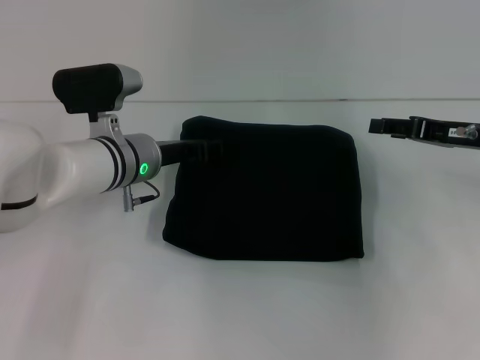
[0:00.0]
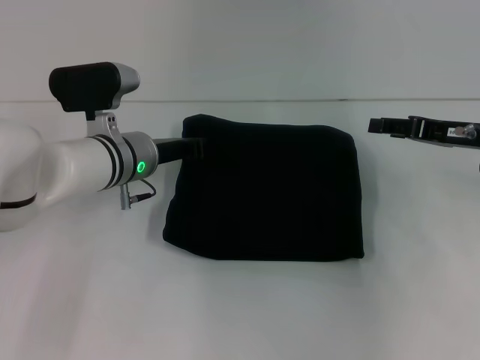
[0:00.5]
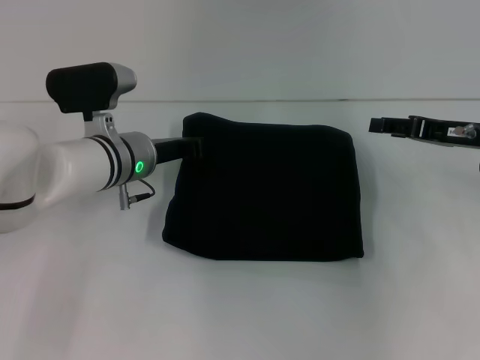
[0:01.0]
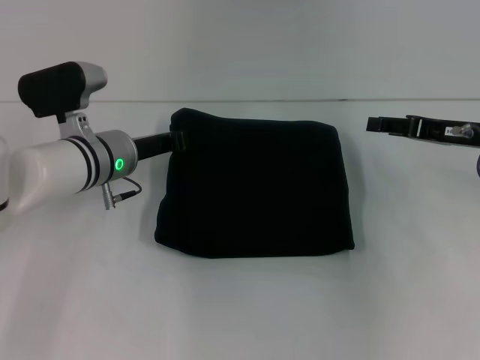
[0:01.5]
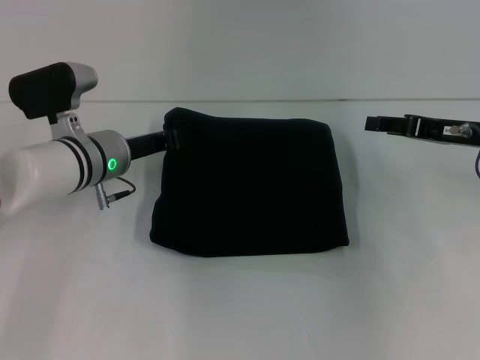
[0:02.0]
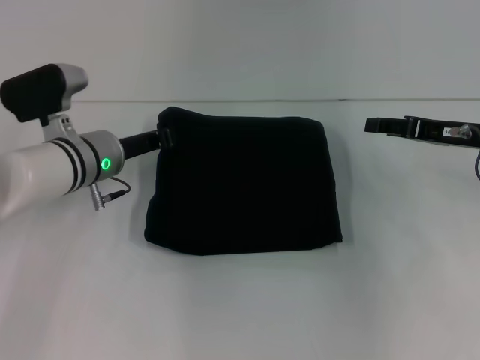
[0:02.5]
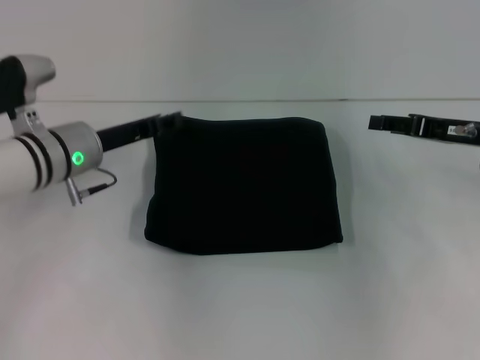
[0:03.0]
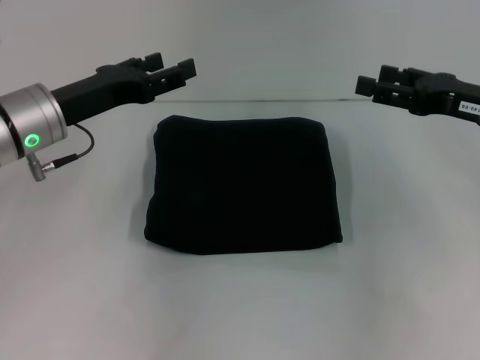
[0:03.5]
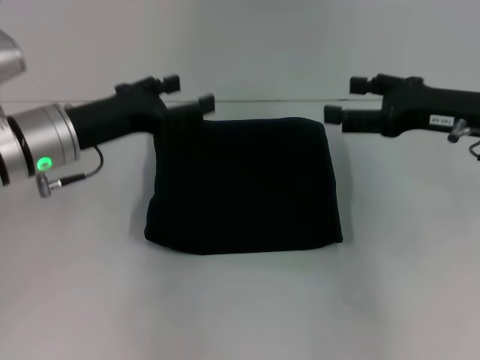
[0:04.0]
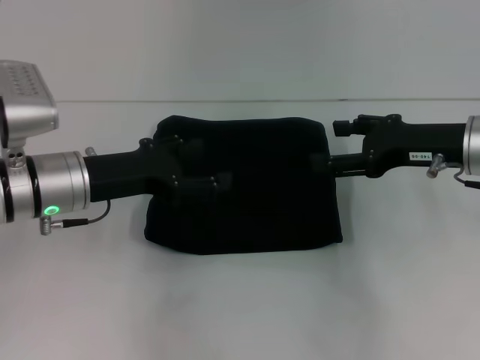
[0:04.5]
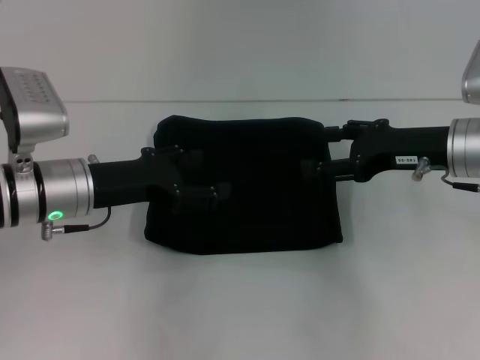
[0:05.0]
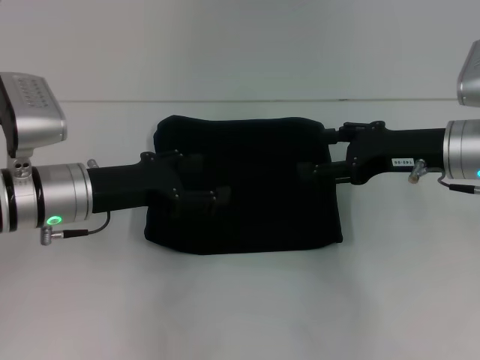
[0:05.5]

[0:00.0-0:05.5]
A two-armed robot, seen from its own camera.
0:00.0 to 0:02.0: The left gripper closes up.
0:02.0 to 0:03.5: The left gripper travels upward and to the left by some 10 cm, and opens its fingers.
0:03.5 to 0:05.5: The left gripper ends up some 5 cm from where it was. Meanwhile the right gripper travels to the left by approximately 5 cm.

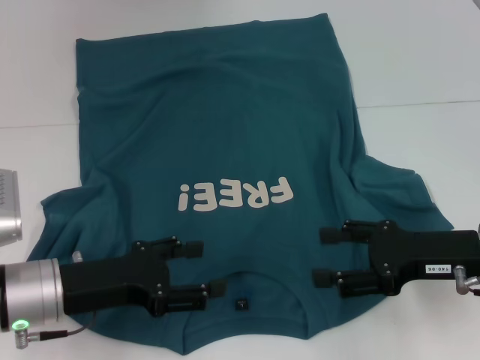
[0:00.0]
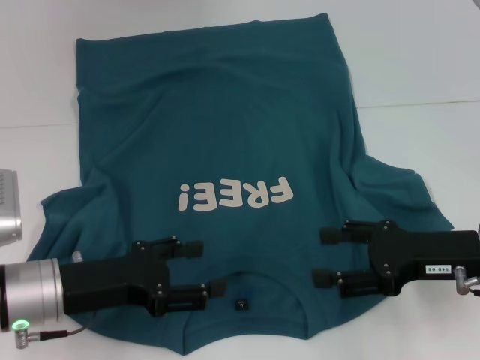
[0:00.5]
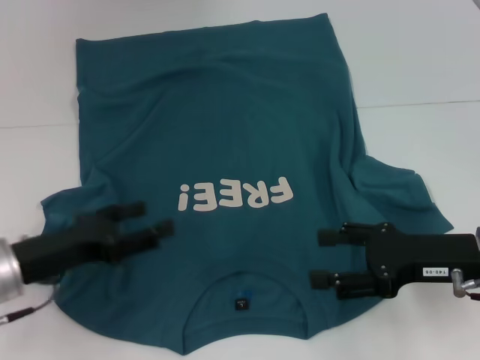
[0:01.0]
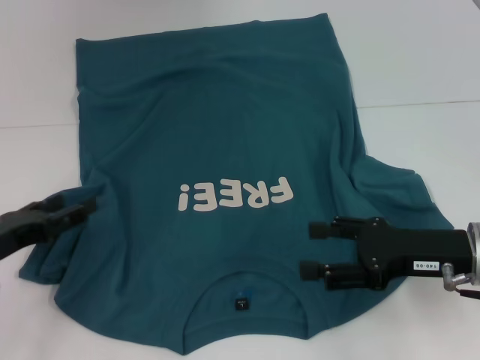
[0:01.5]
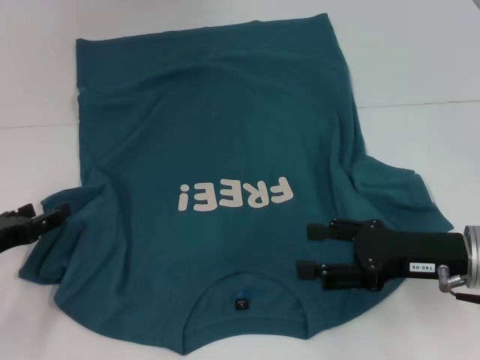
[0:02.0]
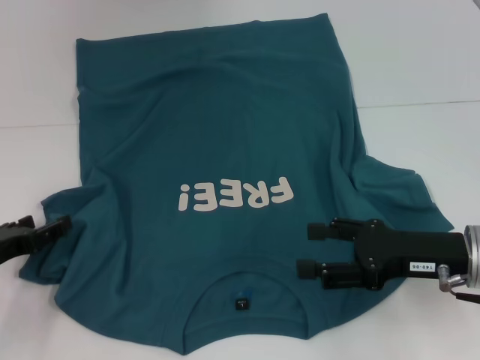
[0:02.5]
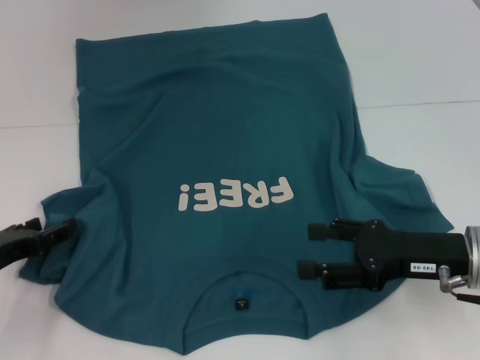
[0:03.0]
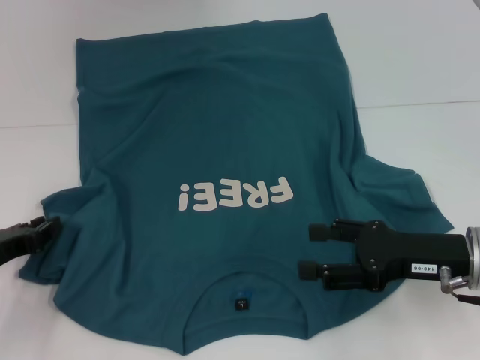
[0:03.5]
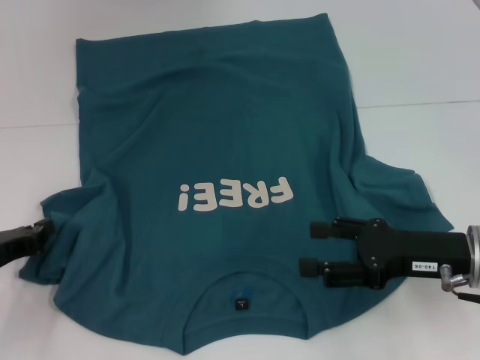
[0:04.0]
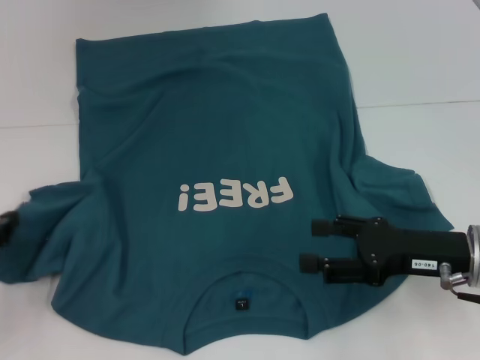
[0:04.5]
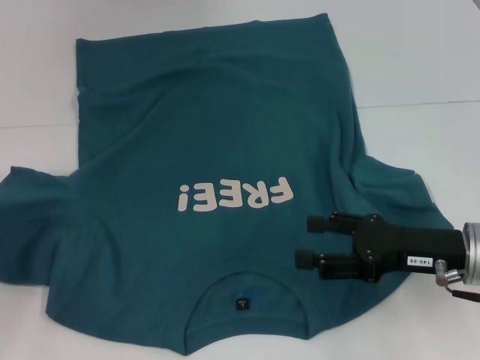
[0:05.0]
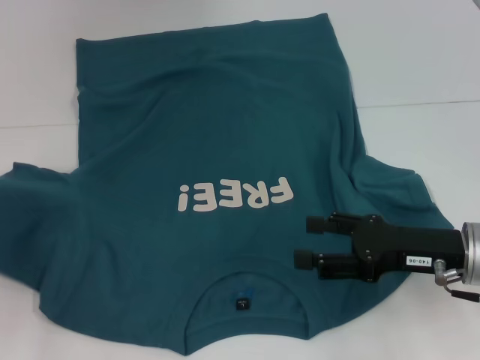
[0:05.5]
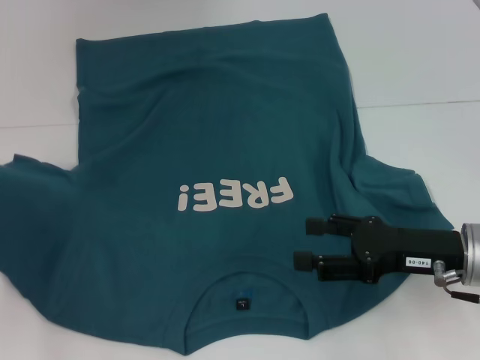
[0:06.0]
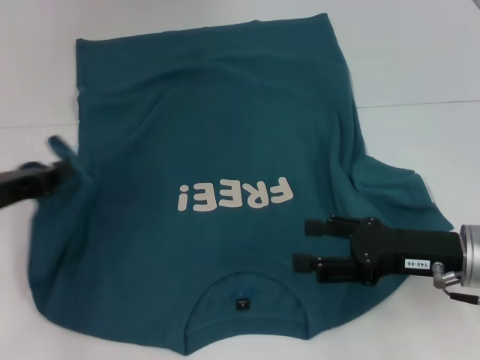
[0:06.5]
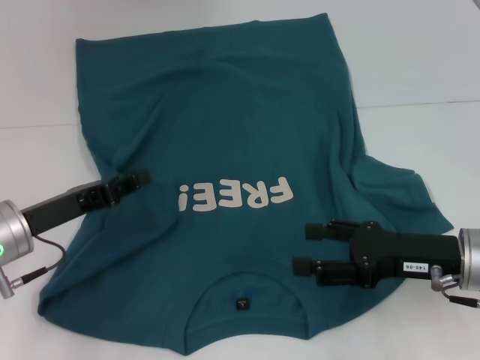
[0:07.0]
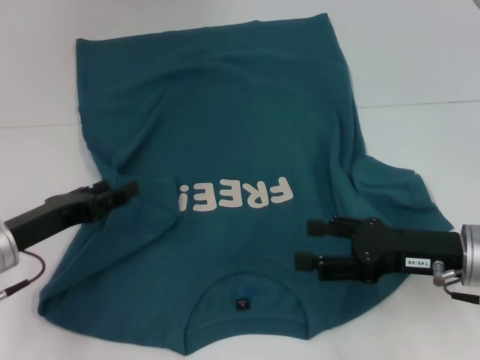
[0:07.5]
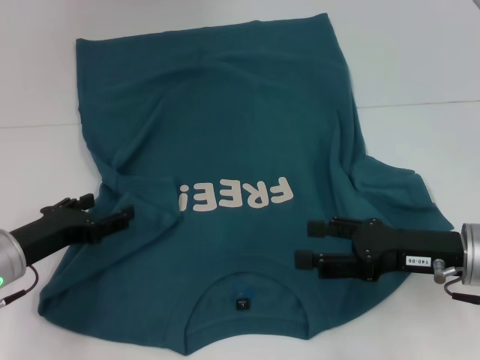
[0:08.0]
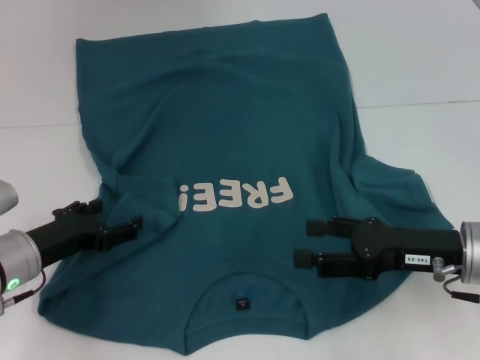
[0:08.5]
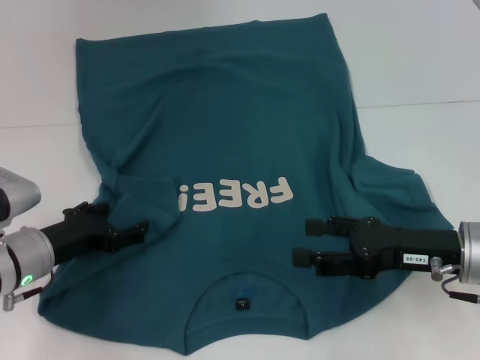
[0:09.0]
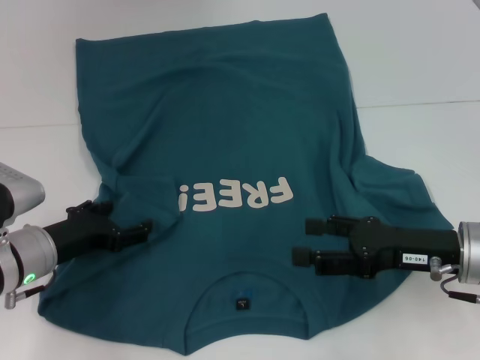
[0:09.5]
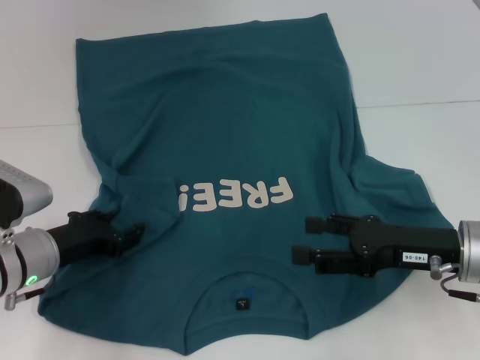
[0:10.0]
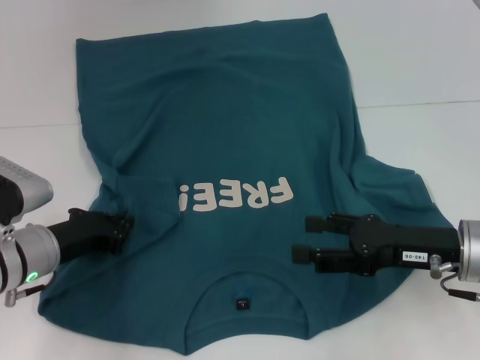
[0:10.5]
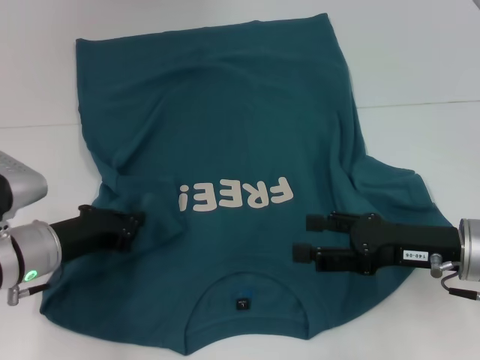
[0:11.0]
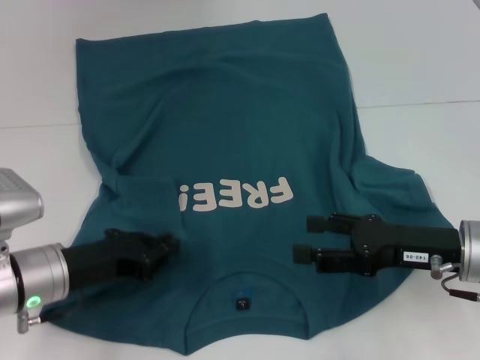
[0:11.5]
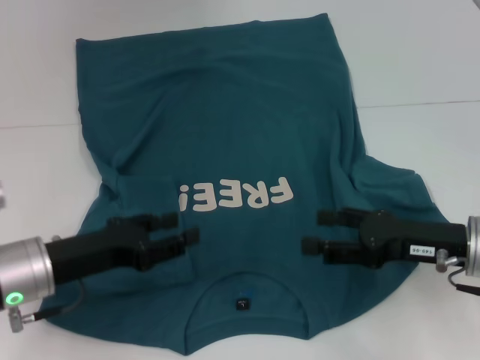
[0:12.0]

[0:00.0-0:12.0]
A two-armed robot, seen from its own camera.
Step, 0:00.0 to 0:11.5: Fold the bottom left sleeve with your left hand.
0:00.0 to 0:02.0: The left gripper is displaced to the left by some 10 cm.
0:02.0 to 0:04.0: The left gripper closes up.
0:04.0 to 0:06.0: The left gripper shifts about 5 cm upward.
0:06.0 to 0:08.0: The left gripper goes roughly 10 cm to the right and downward, and opens its fingers.
0:08.0 to 0:10.0: The grippers move only a little.
0:10.0 to 0:12.0: The left gripper shifts by some 5 cm.

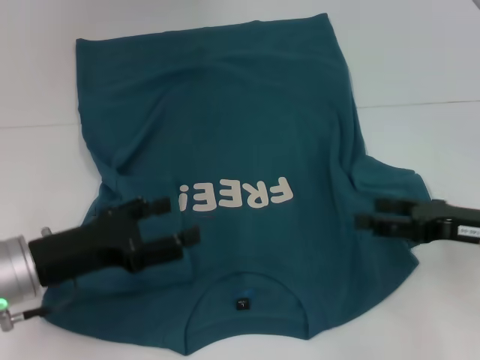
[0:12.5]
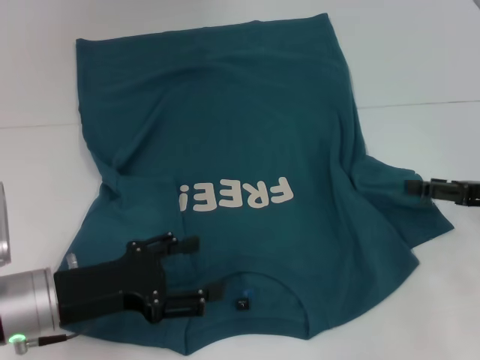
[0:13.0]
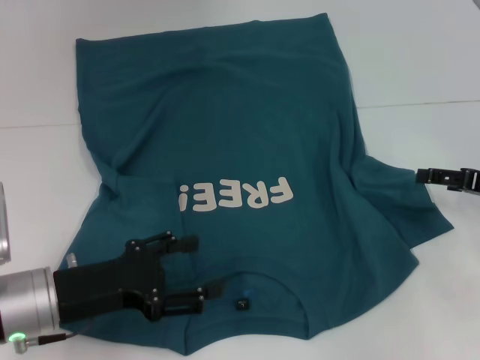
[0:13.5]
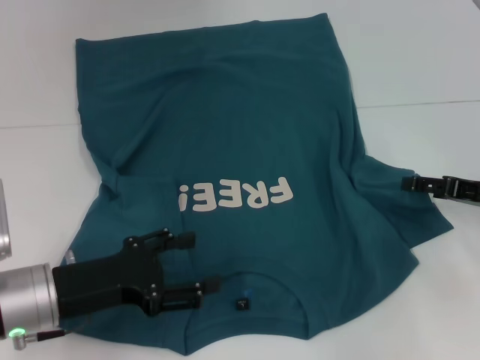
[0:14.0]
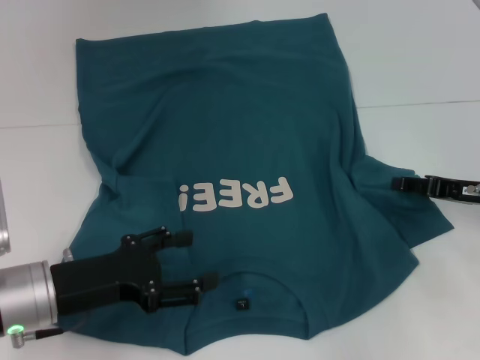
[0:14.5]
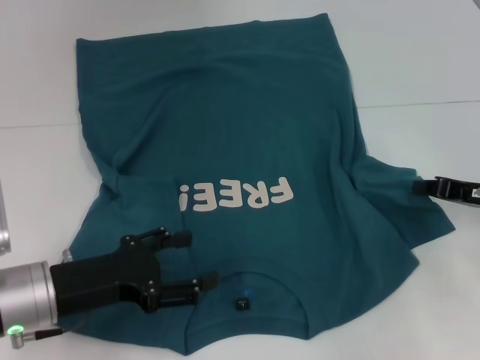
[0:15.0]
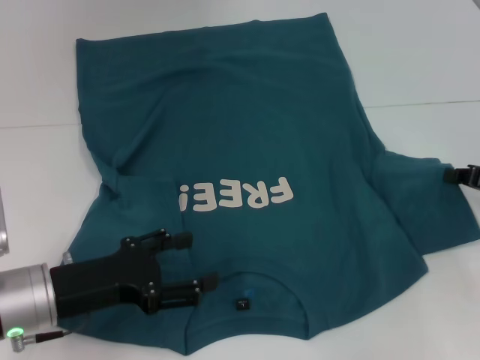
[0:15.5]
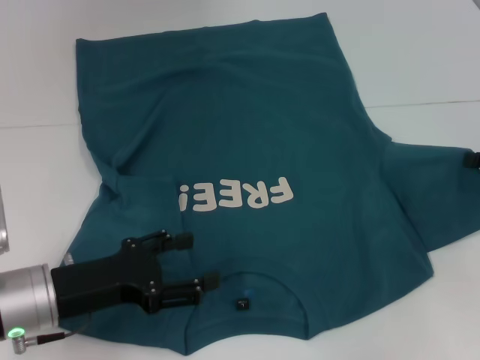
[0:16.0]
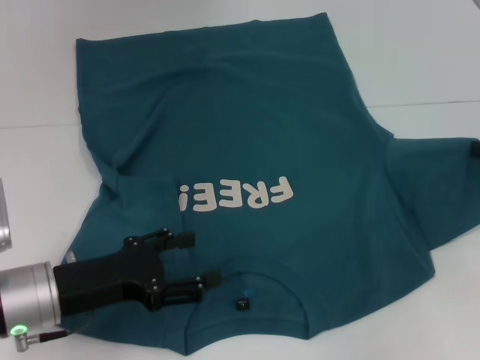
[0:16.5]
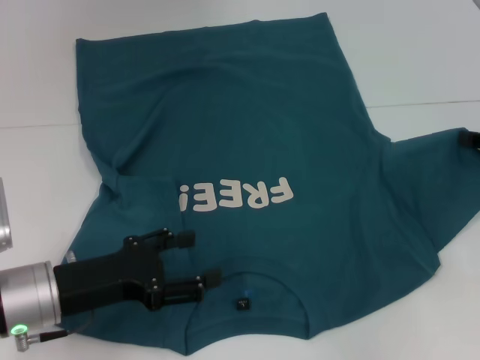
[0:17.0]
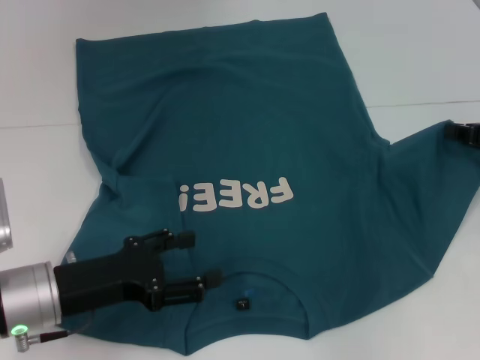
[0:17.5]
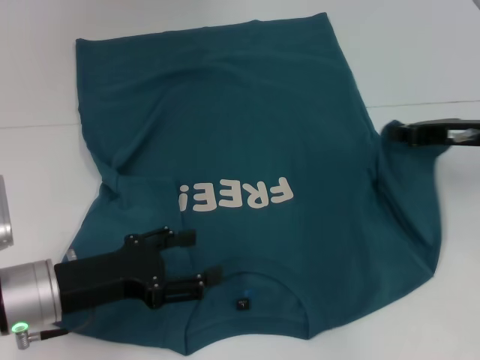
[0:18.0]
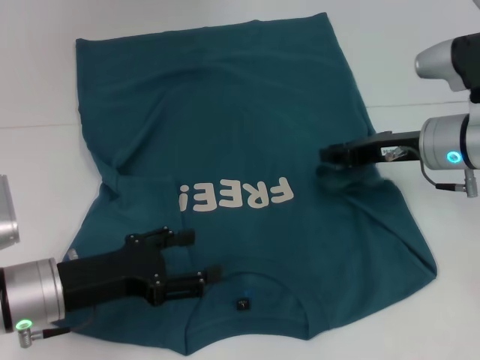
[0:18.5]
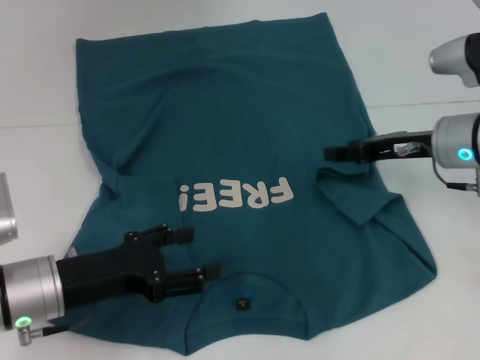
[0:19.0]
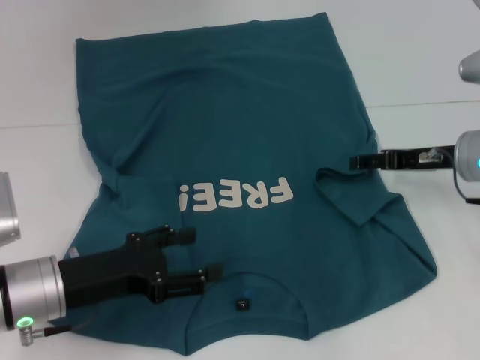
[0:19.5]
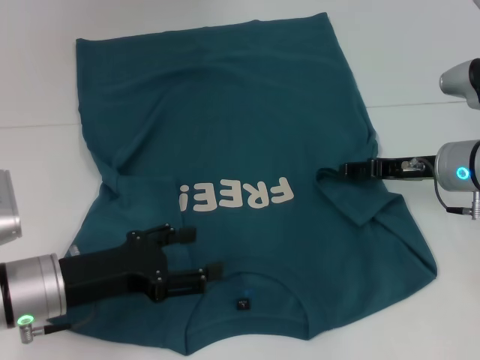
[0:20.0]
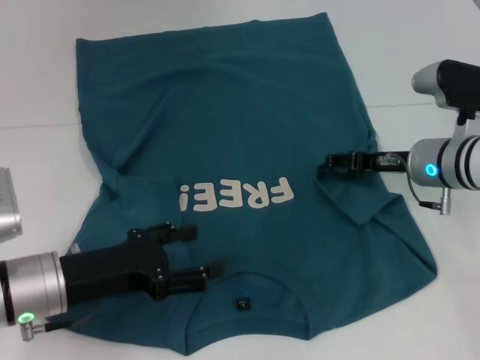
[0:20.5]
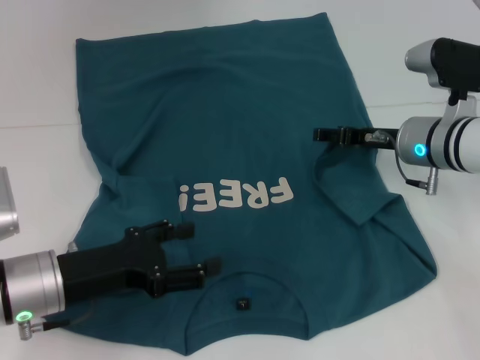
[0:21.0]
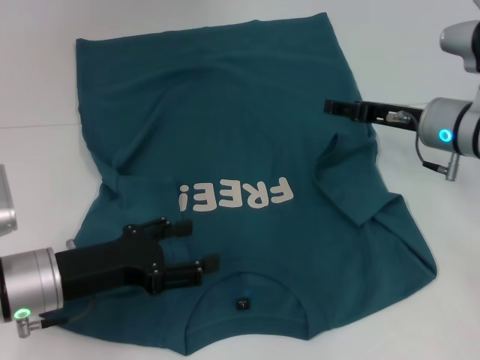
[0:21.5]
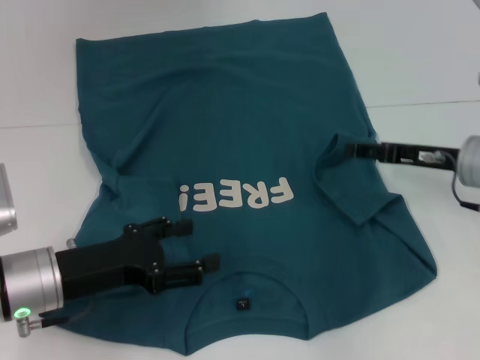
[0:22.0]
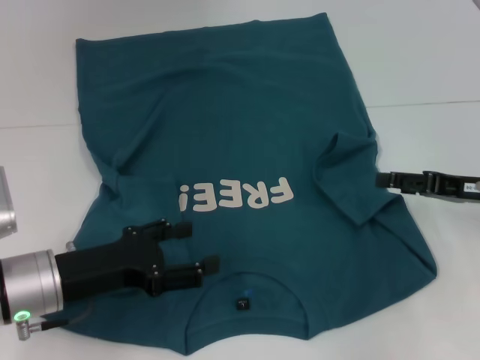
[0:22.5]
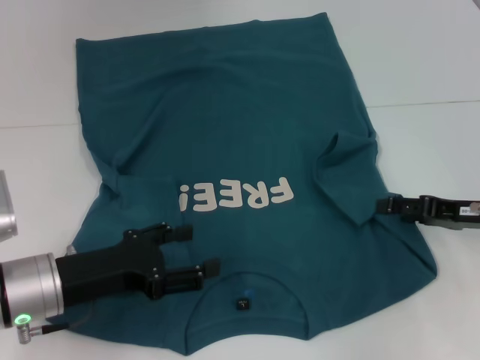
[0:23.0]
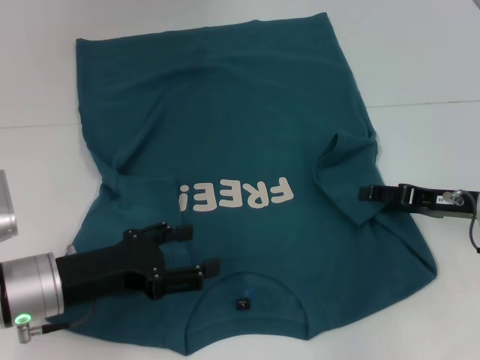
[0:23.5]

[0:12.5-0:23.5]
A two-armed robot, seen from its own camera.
0:12.5 to 0:14.5: The right gripper goes approximately 5 cm forward.
0:14.5 to 0:16.0: The right gripper goes about 5 cm to the right, and closes up.
0:16.0 to 0:18.0: The right gripper moves to the left, some 10 cm.
0:18.0 to 0:20.0: The right gripper moves some 5 cm, and opens up.
0:20.0 to 0:21.5: The grippers make only small movements.
0:21.5 to 0:23.5: The right gripper shifts roughly 10 cm backward and to the right.
